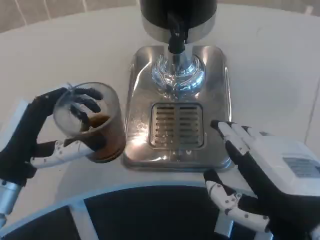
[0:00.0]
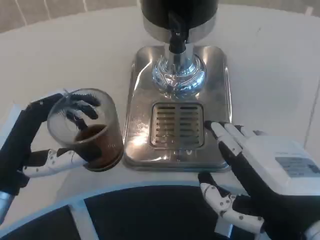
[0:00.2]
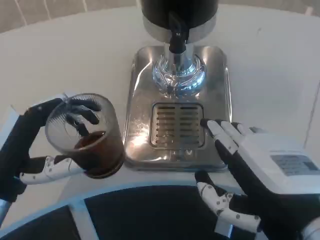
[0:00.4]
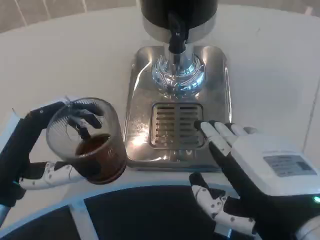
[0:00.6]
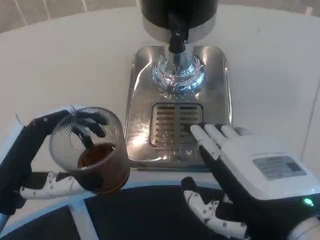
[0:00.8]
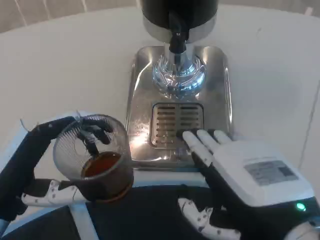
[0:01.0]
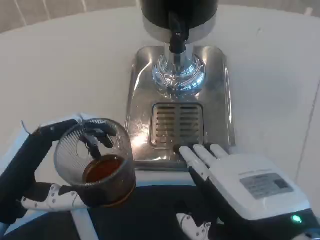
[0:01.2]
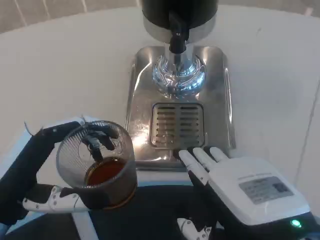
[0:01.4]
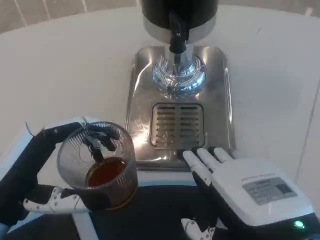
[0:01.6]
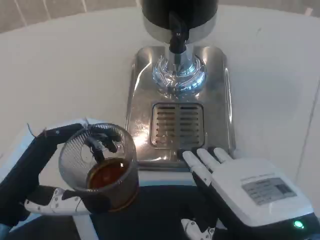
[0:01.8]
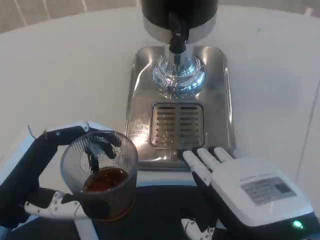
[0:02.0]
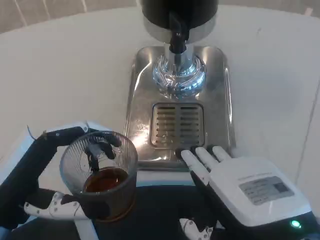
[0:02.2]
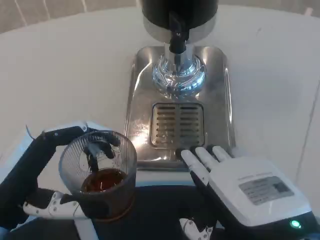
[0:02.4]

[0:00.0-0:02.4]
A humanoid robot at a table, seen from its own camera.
Task of the whole recording: Grasp the cup under the faucet to collect the drink, then remove the cup.
0:01.2 to 0:02.4: Neither hand changes place.

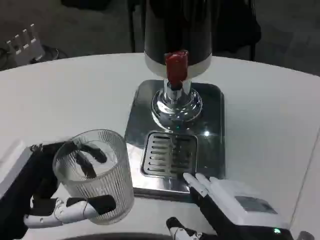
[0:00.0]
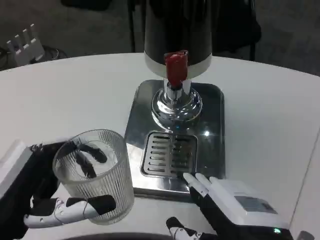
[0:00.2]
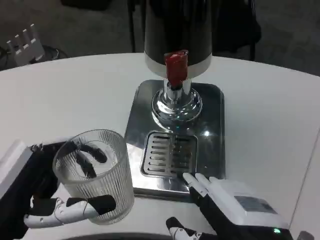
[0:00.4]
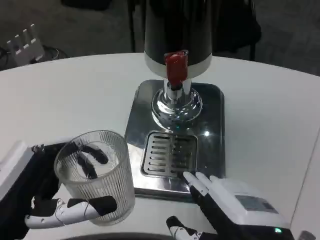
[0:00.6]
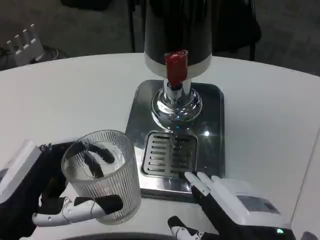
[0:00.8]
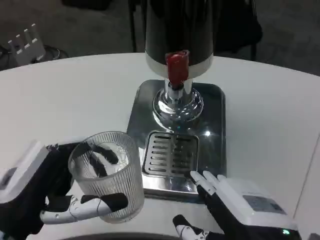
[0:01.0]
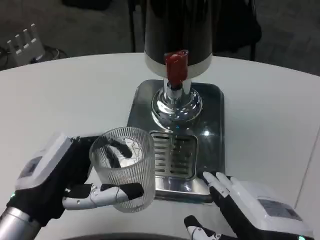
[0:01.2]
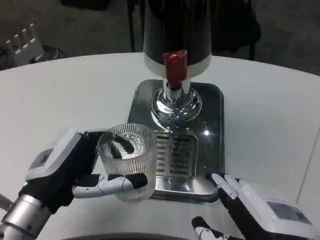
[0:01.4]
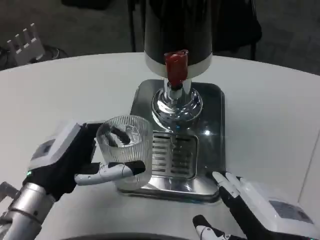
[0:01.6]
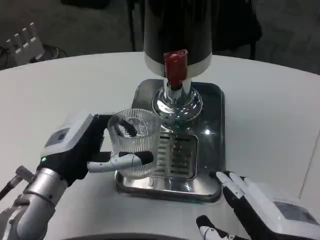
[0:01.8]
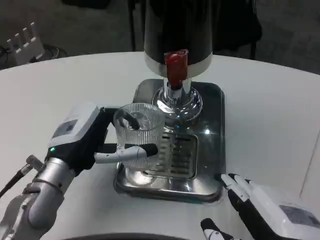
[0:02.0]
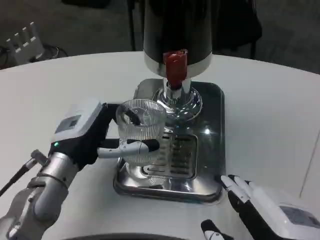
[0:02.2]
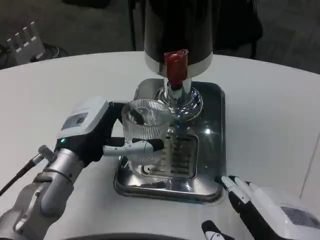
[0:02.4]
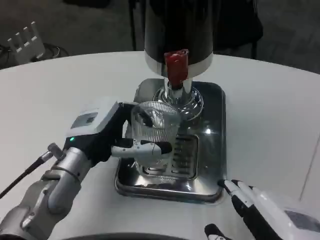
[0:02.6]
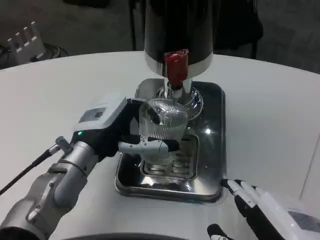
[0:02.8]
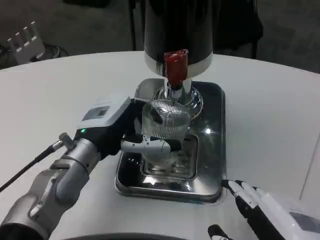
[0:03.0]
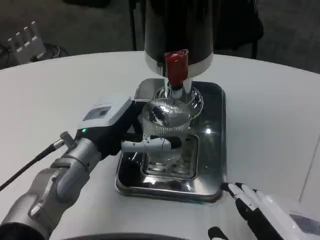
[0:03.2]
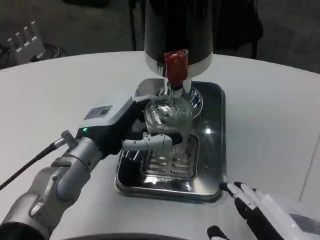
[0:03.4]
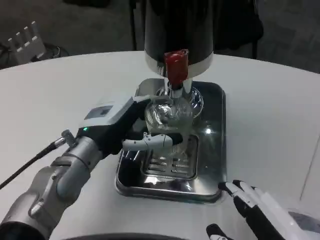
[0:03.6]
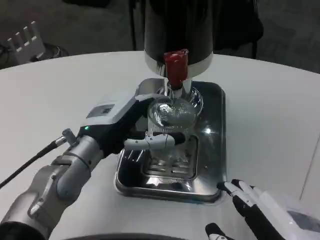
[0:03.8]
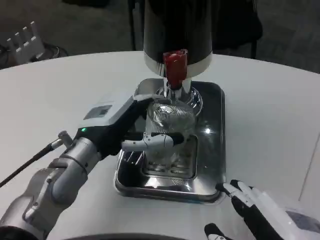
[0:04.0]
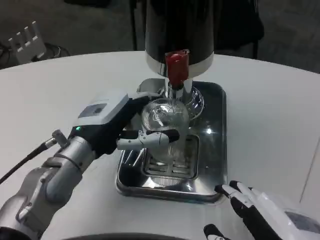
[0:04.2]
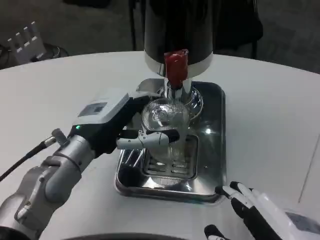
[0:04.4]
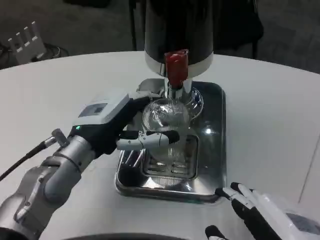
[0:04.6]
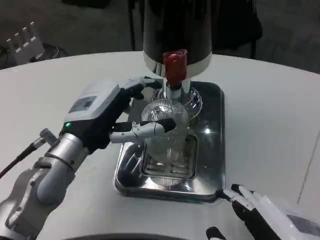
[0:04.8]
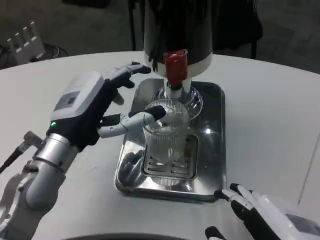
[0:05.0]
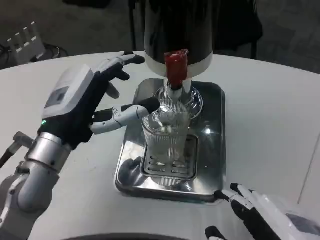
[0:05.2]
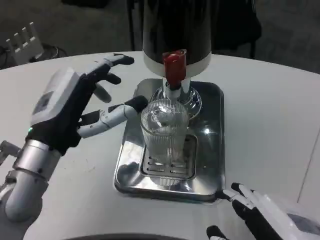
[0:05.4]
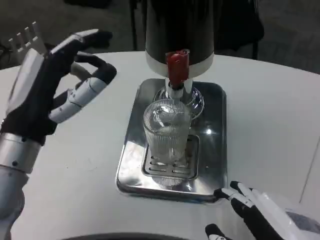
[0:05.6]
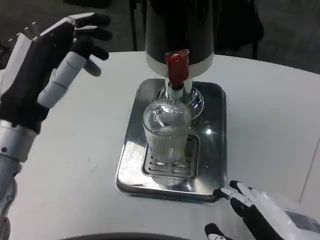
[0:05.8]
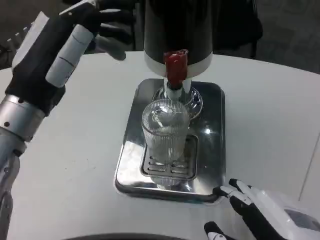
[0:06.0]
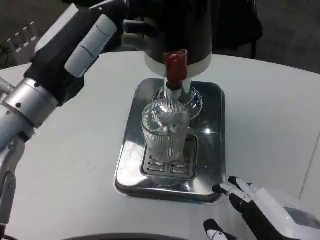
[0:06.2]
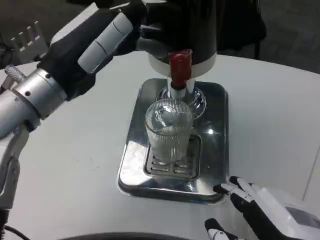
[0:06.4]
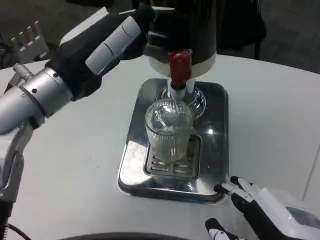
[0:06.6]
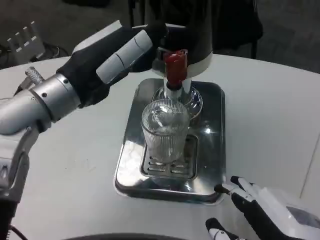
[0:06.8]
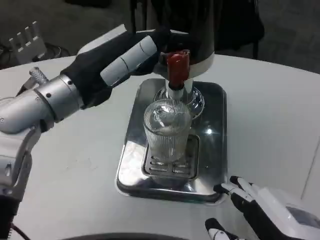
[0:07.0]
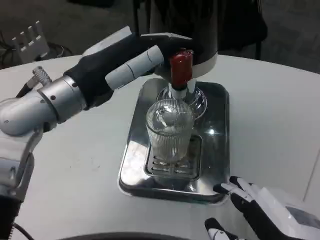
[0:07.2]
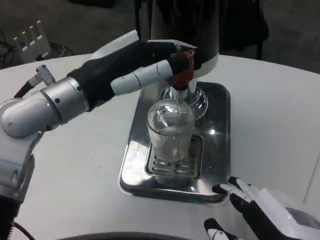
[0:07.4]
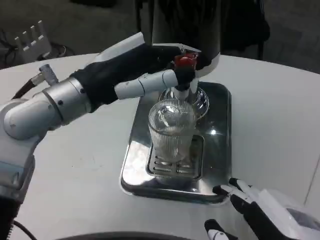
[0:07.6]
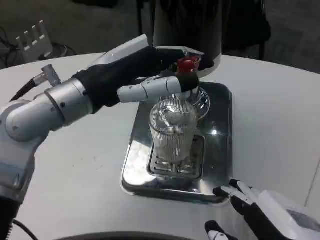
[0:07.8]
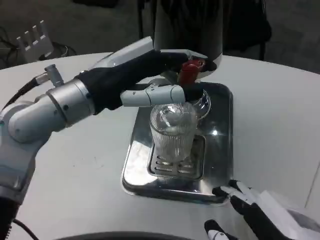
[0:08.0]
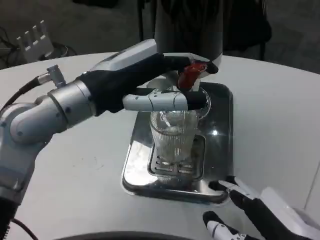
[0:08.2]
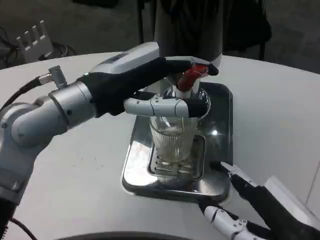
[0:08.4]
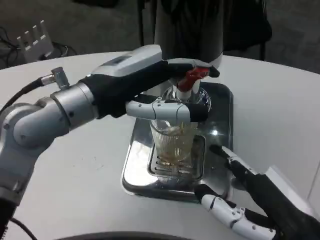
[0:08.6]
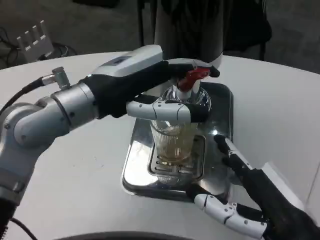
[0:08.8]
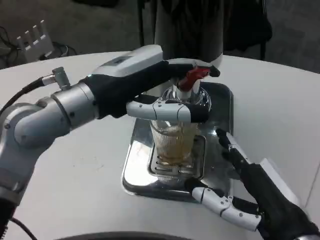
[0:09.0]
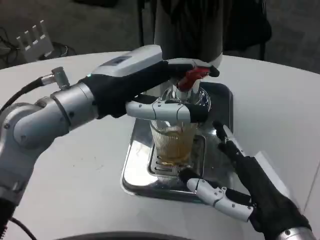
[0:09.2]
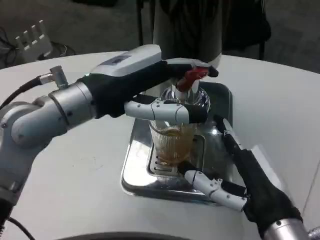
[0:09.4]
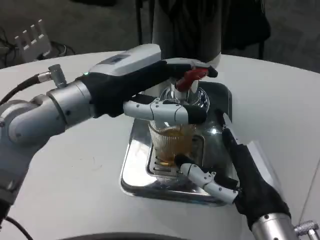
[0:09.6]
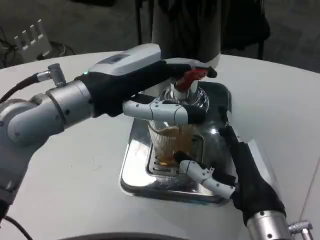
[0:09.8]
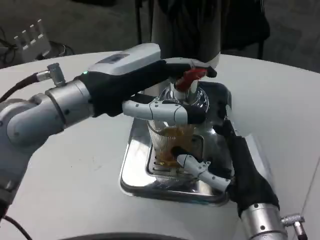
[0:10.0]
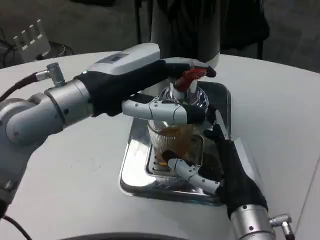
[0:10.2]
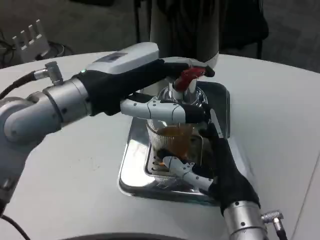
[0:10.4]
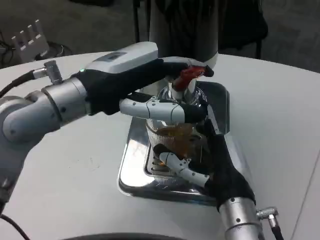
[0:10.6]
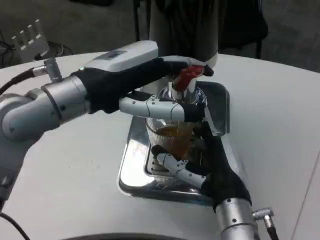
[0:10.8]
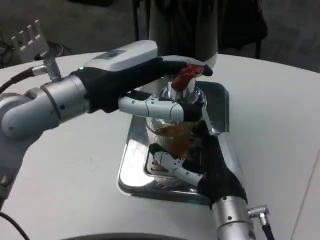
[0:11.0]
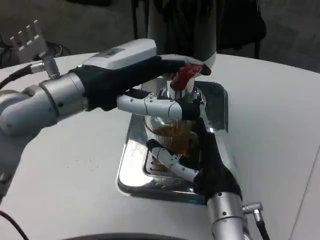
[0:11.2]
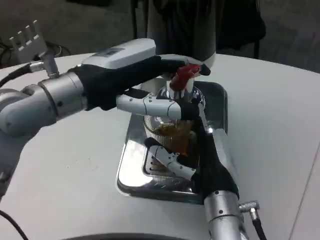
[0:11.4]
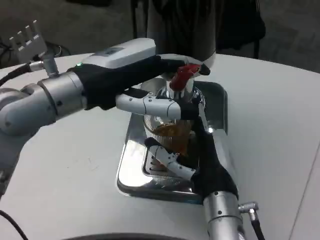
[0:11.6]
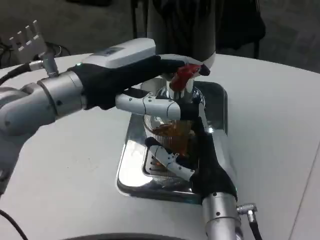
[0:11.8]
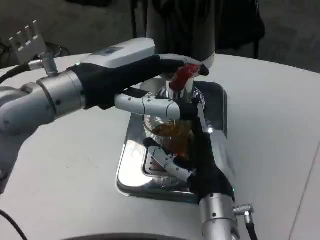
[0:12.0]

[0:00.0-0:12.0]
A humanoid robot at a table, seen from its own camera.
Task of the whole recording: Grasp the cup under the faucet to collect the drink, then remove the cup.
0:00.0 to 0:01.6: The left hand shifts approximately 10 cm forward.
0:01.6 to 0:03.0: The left hand travels forward by some 5 cm.
0:03.0 to 0:04.4: There are only small adjustments of the hands.
0:04.4 to 0:06.0: The left hand heads upward, covering some 10 cm.
0:06.0 to 0:07.6: The left hand ends up some 5 cm from where it was.
0:07.6 to 0:09.0: The right hand shifts by approximately 5 cm.
0:09.0 to 0:10.4: The right hand is displaced forward and to the left by roughly 10 cm.

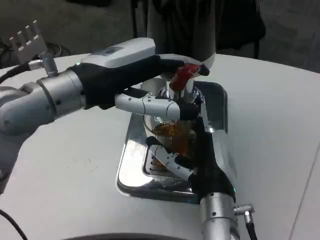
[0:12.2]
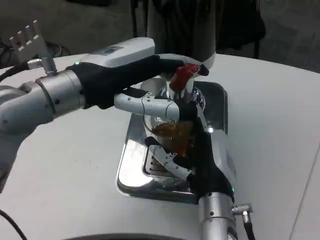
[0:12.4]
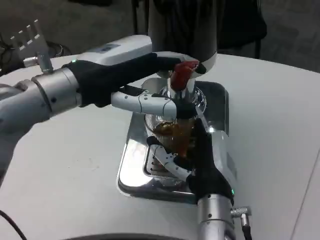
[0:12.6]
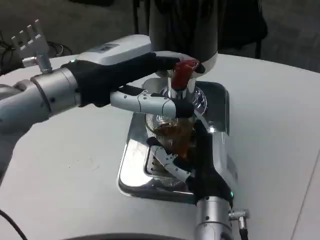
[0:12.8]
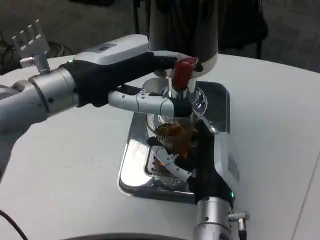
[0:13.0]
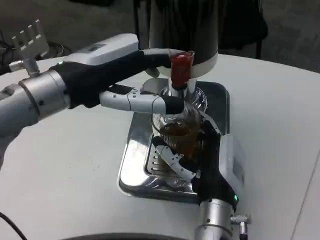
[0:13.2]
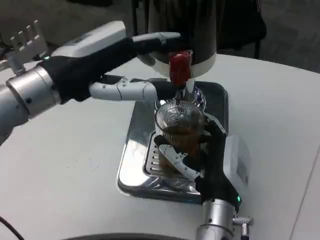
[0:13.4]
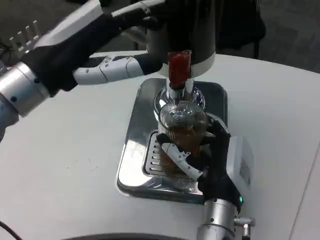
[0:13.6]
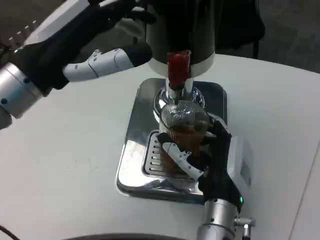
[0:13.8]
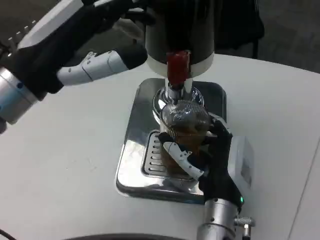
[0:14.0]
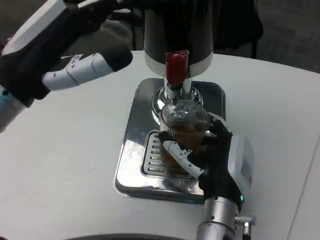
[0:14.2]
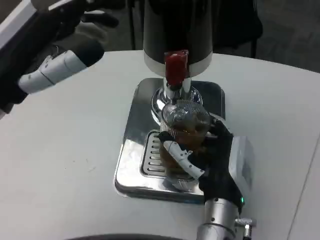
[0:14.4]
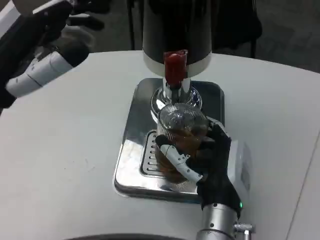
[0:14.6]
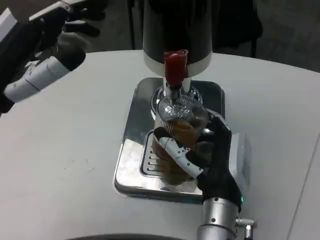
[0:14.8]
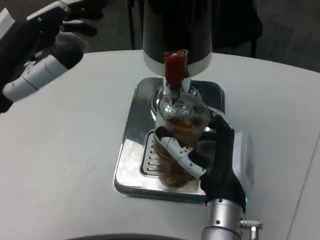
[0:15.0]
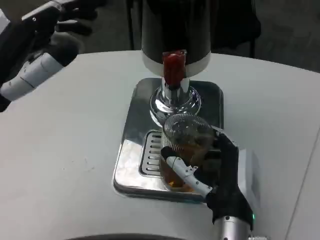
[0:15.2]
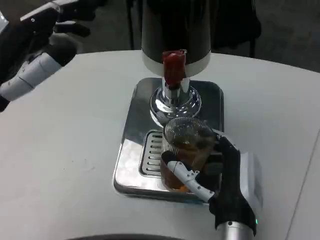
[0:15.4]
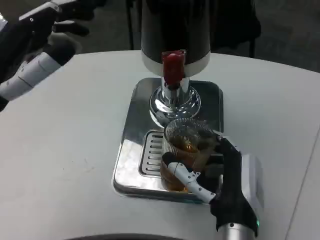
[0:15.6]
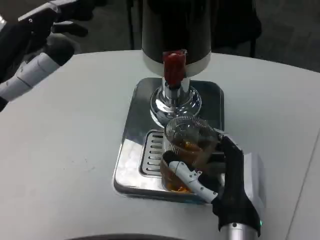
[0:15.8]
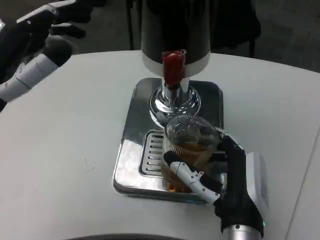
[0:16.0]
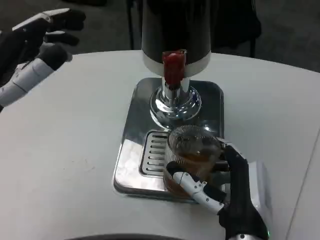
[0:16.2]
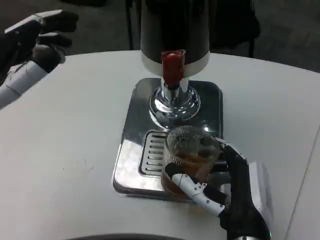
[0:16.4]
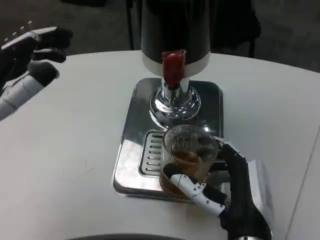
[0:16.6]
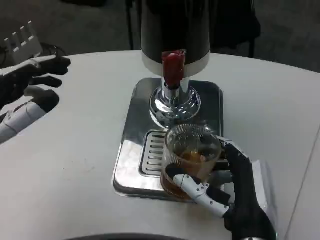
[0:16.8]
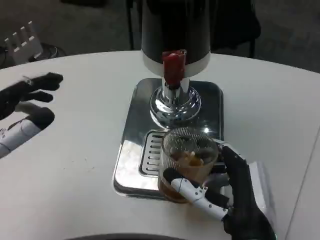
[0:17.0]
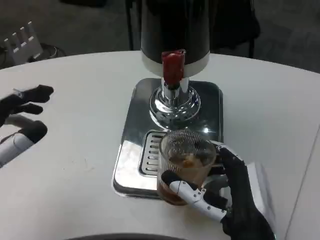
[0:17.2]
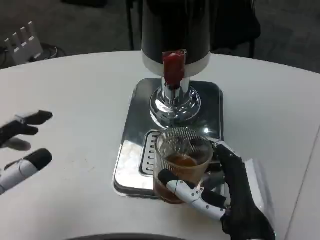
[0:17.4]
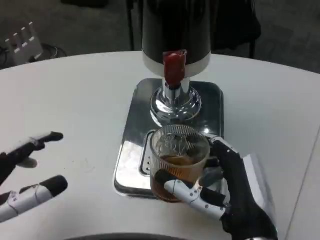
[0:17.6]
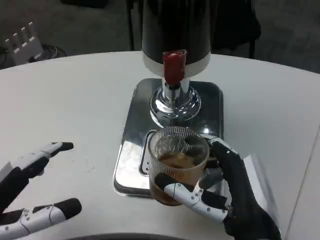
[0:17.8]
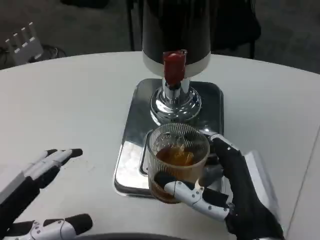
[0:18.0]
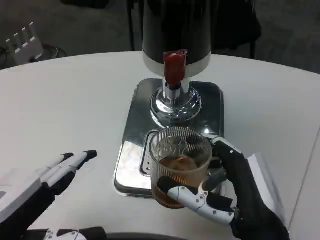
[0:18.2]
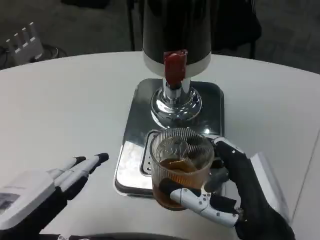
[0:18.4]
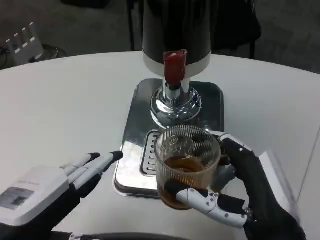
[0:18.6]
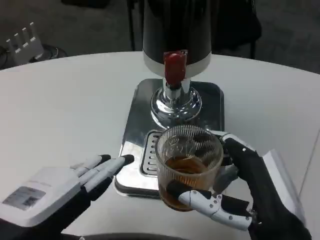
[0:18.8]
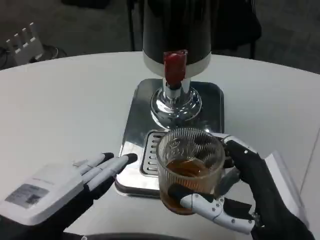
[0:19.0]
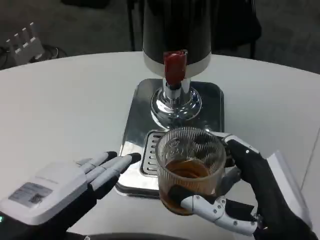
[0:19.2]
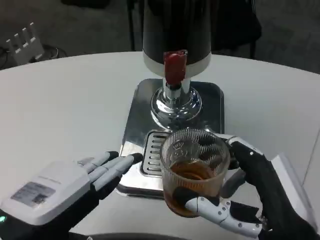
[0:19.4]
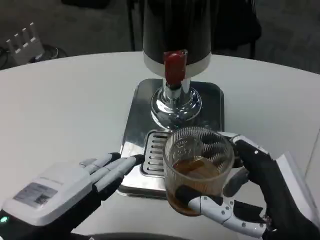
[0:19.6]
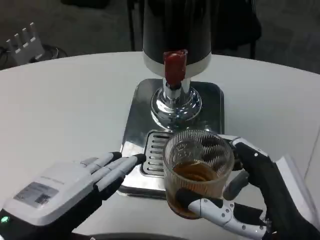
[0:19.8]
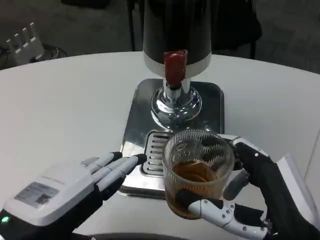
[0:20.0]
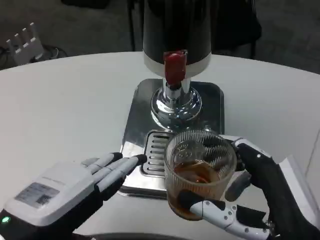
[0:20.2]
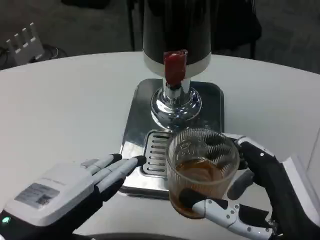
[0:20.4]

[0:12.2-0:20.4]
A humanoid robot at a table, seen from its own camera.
Task of the whole recording: Grasp the cup under the faucet to collect the drink, then remove the cup.
0:13.8 to 0:15.4: The left hand ends up some 5 cm from where it was.
0:15.4 to 0:17.2: The left hand shifts about 10 cm downward and backward.
0:17.2 to 0:18.8: The left hand travels to the right by approximately 5 cm. The right hand shifts by approximately 5 cm.
0:18.8 to 0:20.4: The hands make only small movements.
